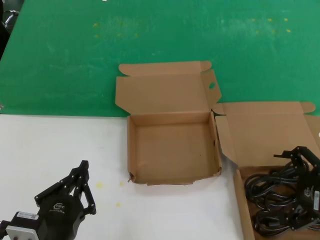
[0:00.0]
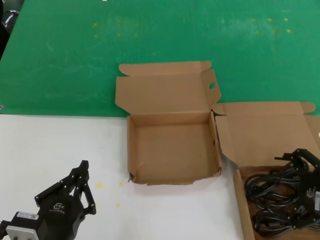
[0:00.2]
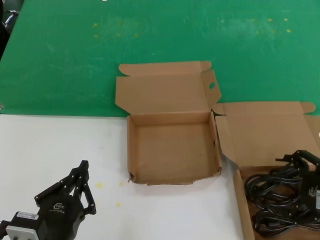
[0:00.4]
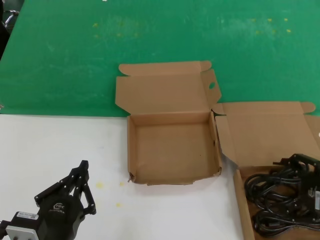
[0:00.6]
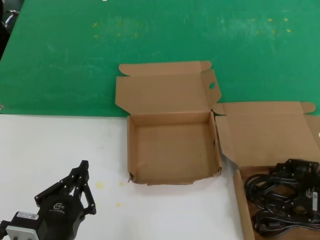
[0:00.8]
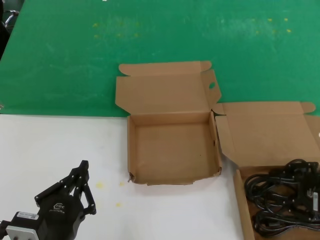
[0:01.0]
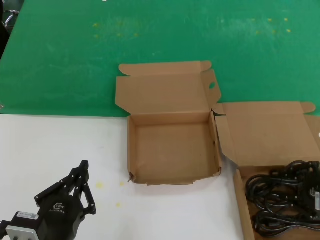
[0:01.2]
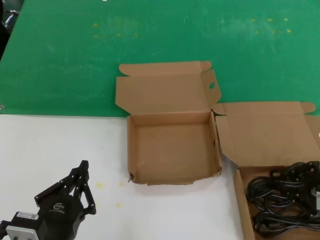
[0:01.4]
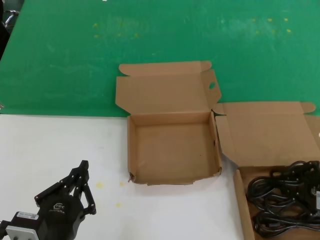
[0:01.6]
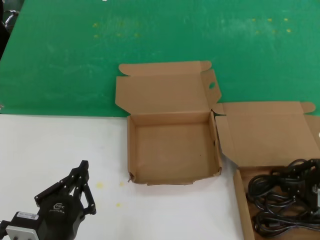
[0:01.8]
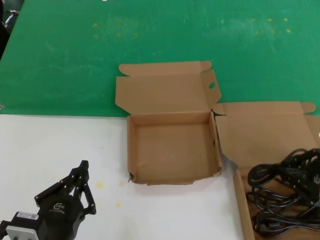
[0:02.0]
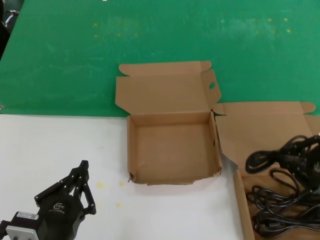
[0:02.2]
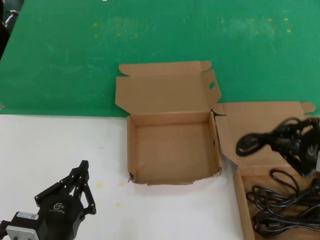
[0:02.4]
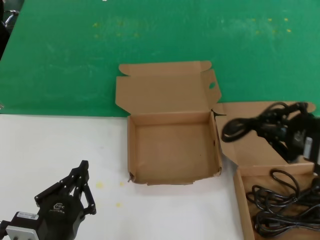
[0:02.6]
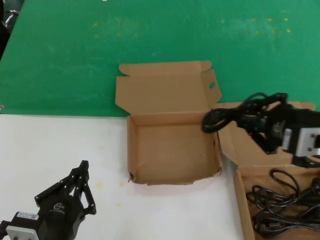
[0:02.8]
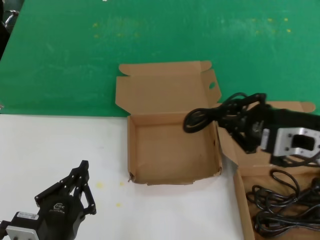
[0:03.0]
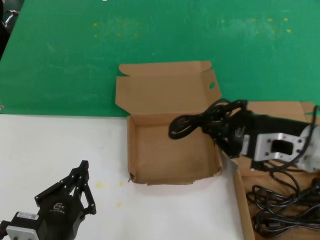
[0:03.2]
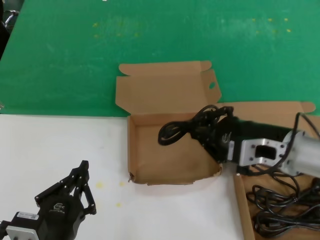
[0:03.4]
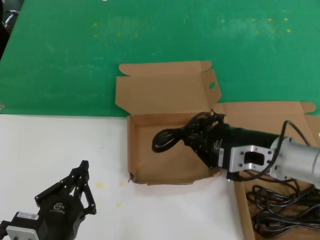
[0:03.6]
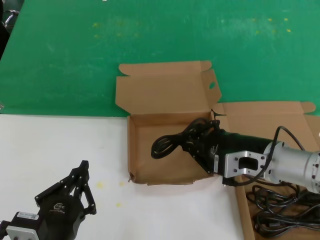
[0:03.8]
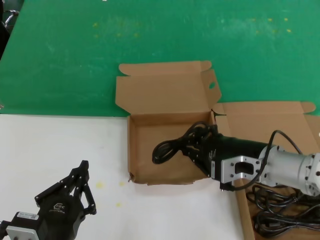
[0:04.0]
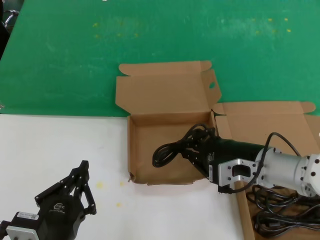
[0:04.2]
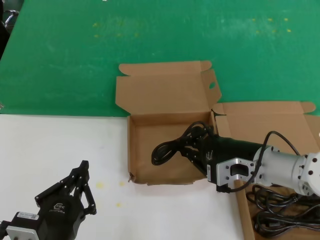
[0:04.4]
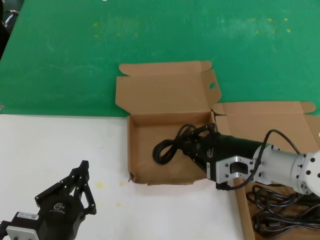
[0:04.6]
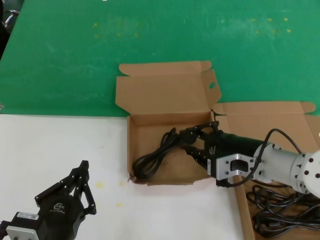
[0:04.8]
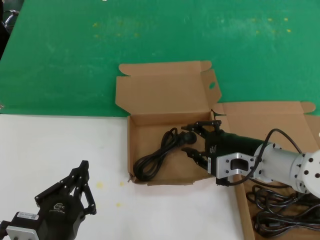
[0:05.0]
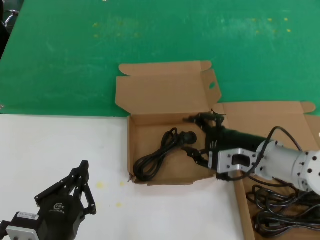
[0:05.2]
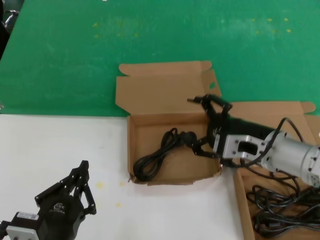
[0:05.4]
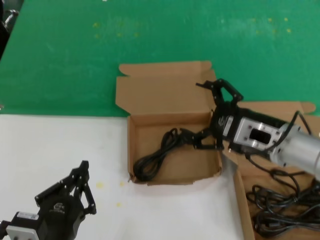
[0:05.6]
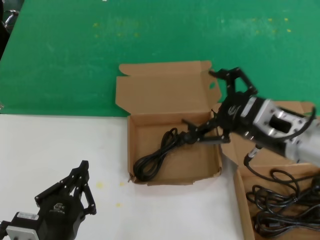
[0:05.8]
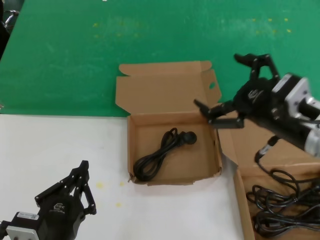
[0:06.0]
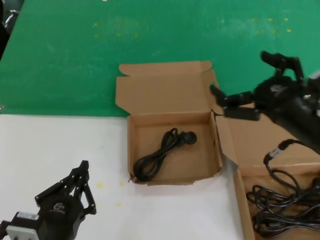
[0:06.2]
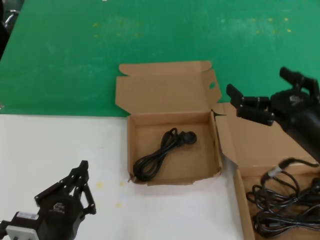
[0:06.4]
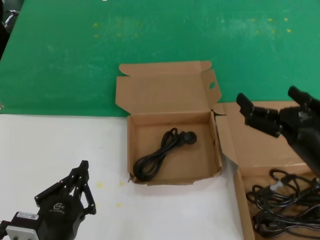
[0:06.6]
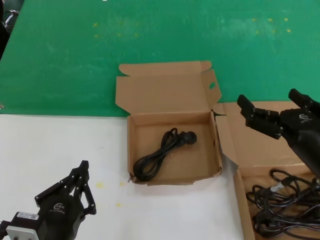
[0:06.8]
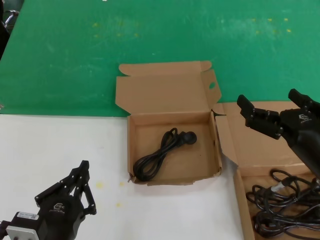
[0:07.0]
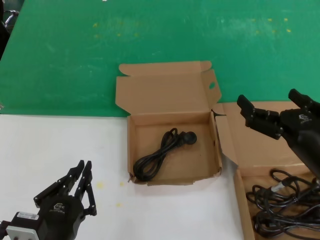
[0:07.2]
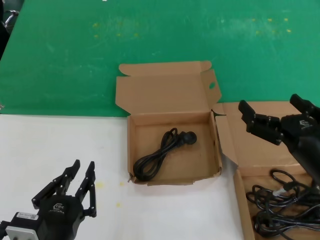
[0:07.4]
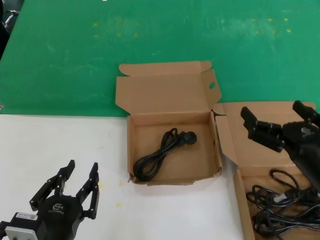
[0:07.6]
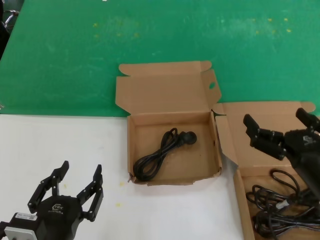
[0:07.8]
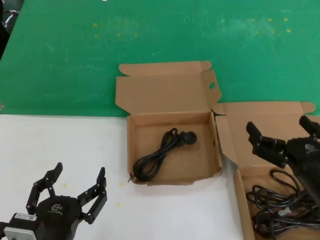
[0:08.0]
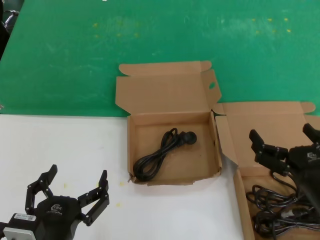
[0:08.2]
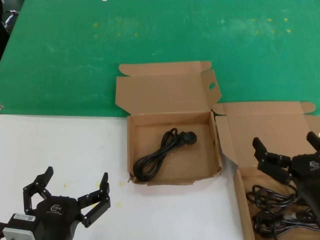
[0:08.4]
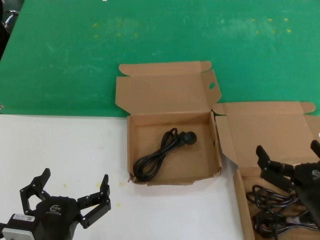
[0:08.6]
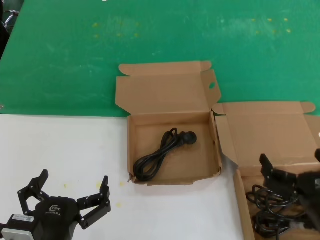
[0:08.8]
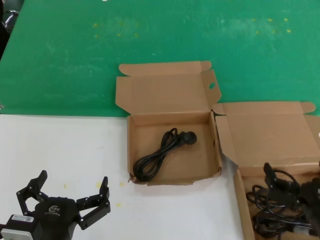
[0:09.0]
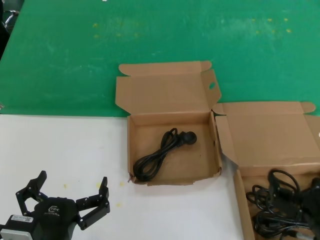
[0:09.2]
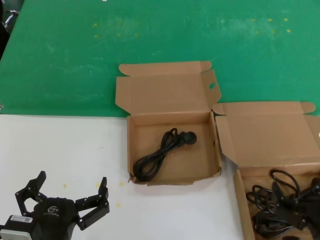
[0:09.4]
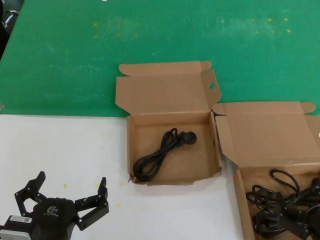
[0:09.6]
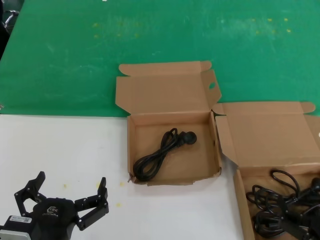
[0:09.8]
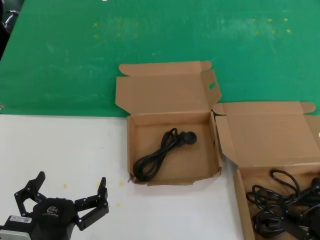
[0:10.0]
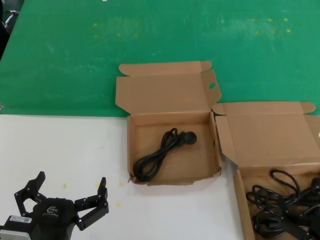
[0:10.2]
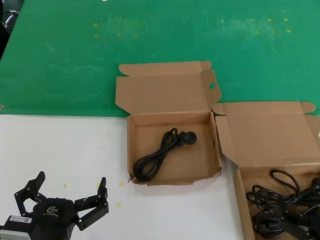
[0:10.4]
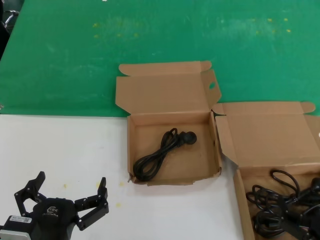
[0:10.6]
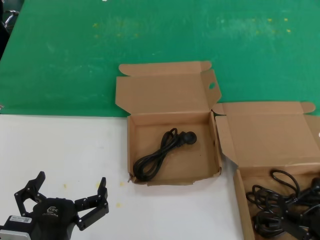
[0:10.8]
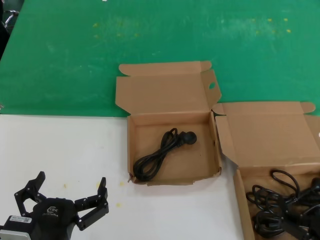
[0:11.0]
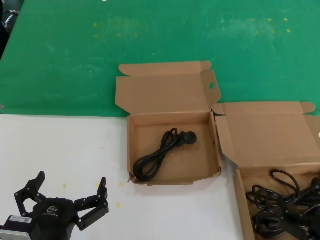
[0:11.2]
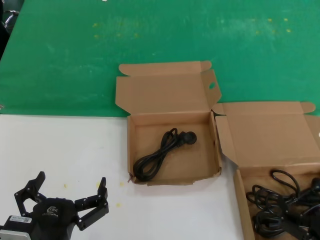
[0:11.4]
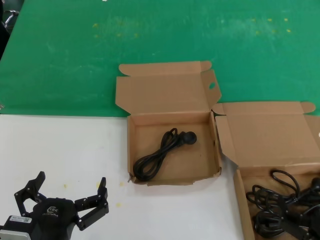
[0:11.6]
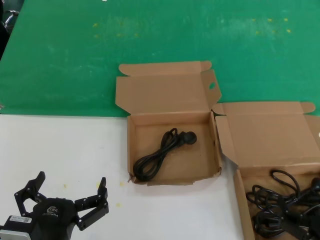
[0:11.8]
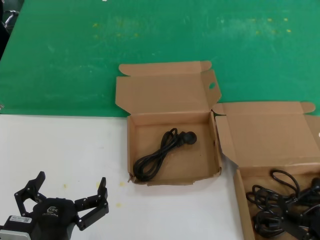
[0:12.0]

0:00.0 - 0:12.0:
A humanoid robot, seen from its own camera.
Task of the whole recording: take the parts from the box containing them and put them into an empty box.
Step, 0:01.8 - 0:05.2: Place the data cable in the another box.
0:00.0 - 0:01.6: The hands make only small movements.
0:01.6 - 0:03.0: The right hand travels to the left and upward by about 15 cm.
0:03.0 - 0:04.4: The right hand shifts about 15 cm downward, forward and to the left.
0:04.4 - 0:06.0: The right hand goes roughly 10 cm upward and backward.
0:06.0 - 0:07.6: The right hand travels downward by roughly 10 cm.
0:07.6 - 0:09.0: The right hand heads downward, covering about 10 cm.
0:09.0 - 0:10.4: The right hand changes place by roughly 5 cm.
0:10.4 - 0:12.0: Both hands stay put.

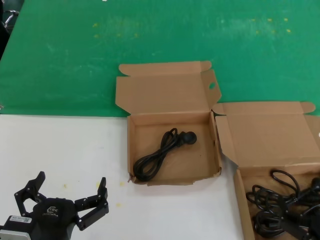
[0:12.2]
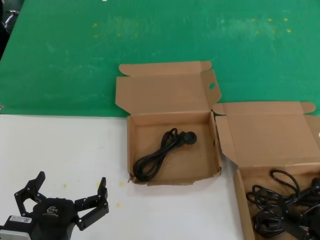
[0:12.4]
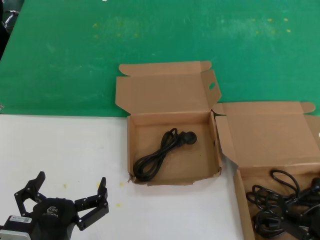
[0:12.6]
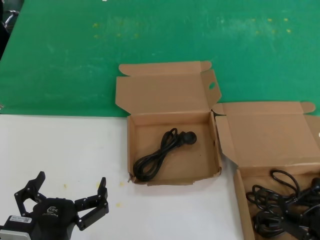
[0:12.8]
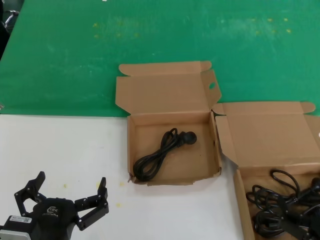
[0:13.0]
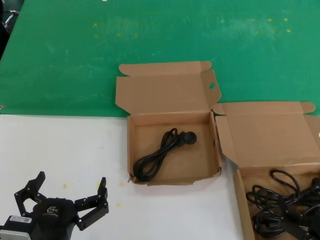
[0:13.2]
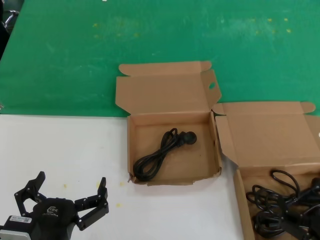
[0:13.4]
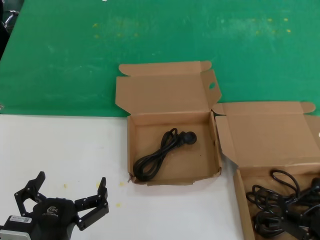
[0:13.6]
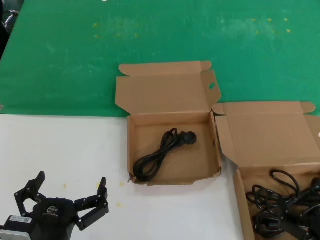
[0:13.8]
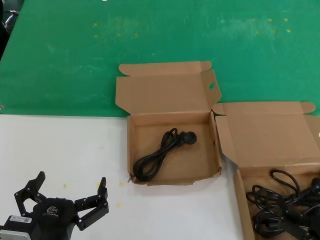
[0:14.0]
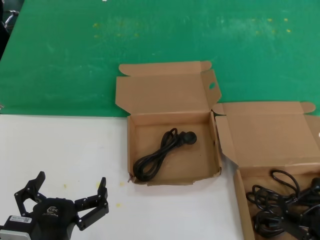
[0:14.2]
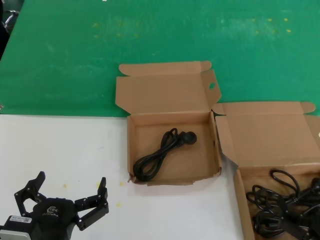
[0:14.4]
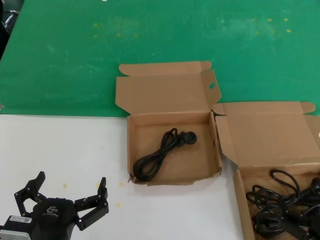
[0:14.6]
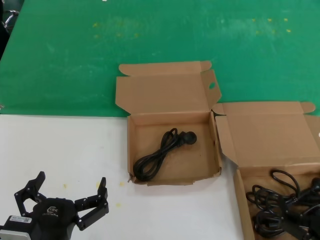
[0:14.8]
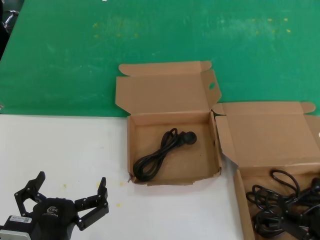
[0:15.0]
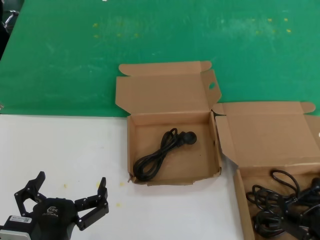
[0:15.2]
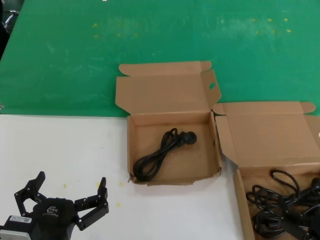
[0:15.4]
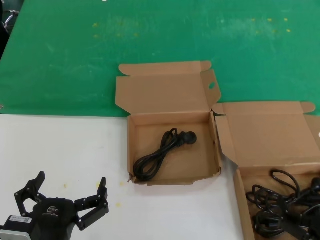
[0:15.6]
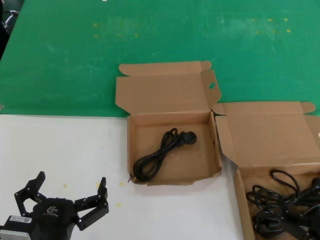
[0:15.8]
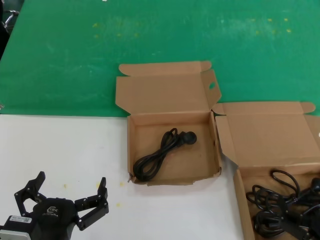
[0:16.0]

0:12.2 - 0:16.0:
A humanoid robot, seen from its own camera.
Task of the whole recording: take the parts from the box containing them and put them into an empty box.
0:12.2 - 0:16.0: Both hands stay about where they are.

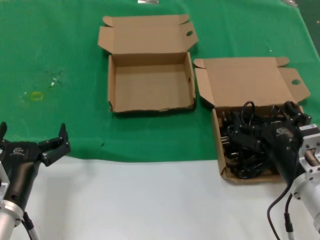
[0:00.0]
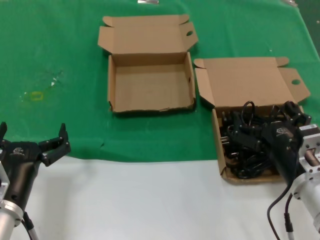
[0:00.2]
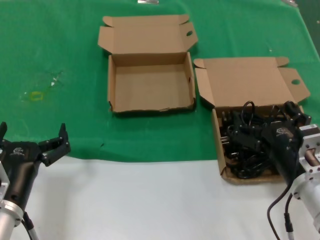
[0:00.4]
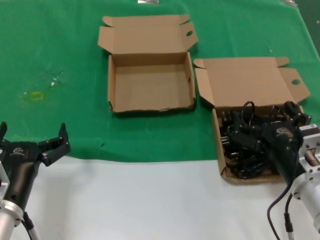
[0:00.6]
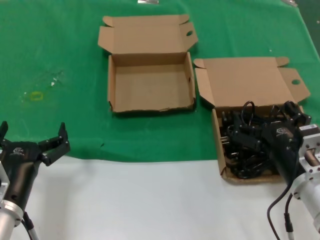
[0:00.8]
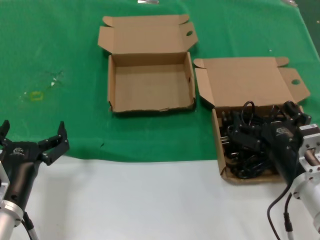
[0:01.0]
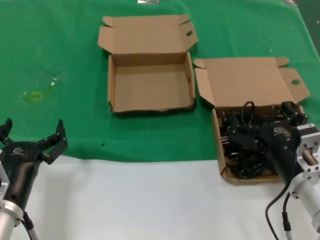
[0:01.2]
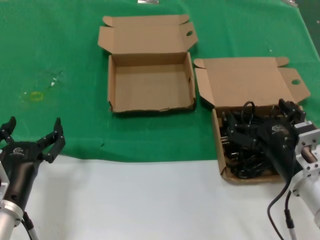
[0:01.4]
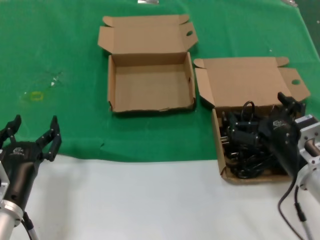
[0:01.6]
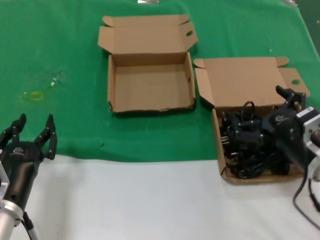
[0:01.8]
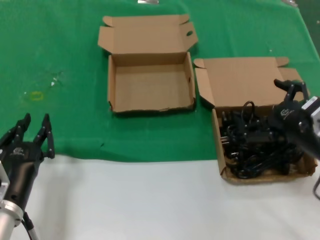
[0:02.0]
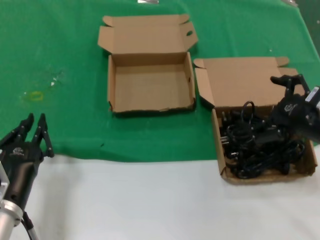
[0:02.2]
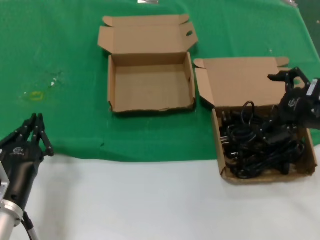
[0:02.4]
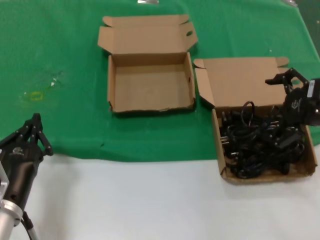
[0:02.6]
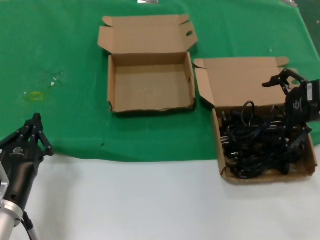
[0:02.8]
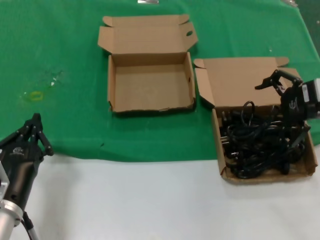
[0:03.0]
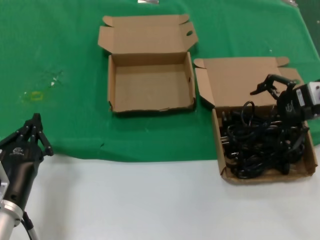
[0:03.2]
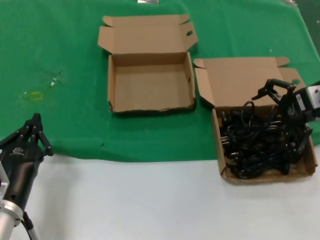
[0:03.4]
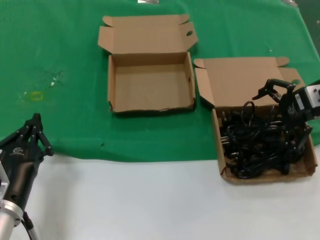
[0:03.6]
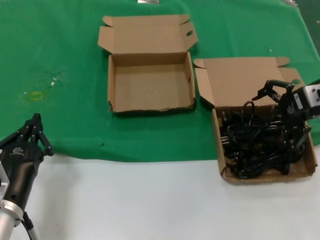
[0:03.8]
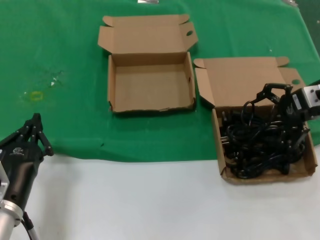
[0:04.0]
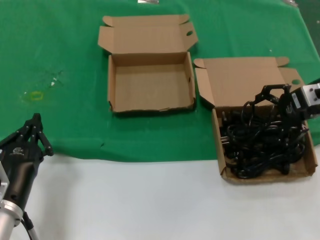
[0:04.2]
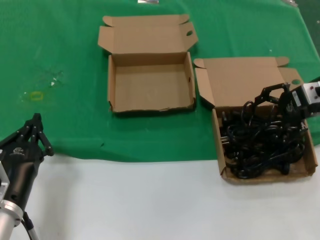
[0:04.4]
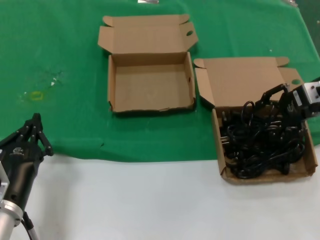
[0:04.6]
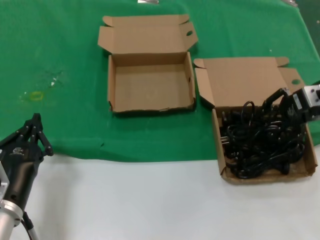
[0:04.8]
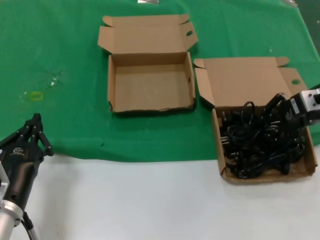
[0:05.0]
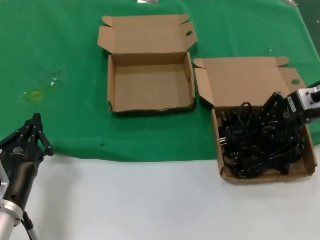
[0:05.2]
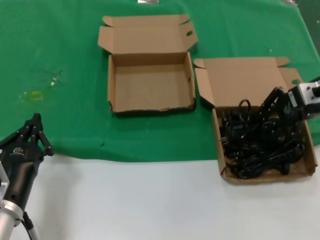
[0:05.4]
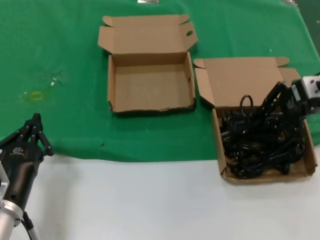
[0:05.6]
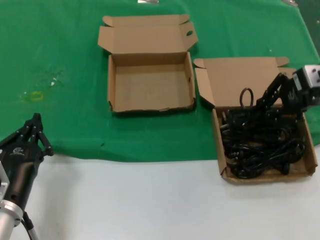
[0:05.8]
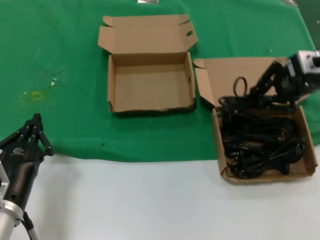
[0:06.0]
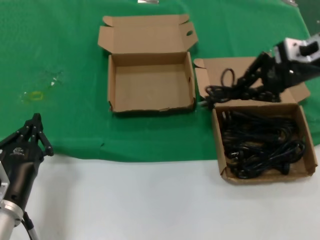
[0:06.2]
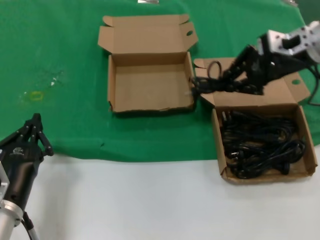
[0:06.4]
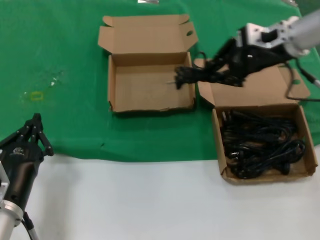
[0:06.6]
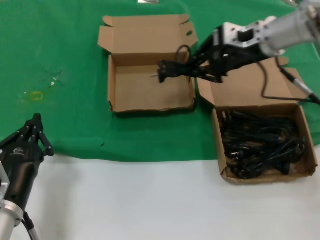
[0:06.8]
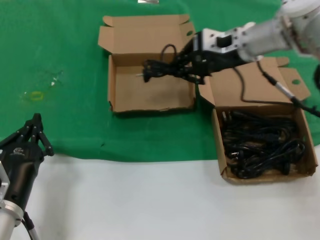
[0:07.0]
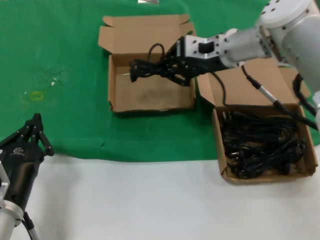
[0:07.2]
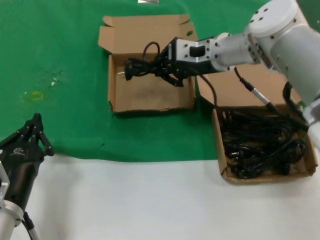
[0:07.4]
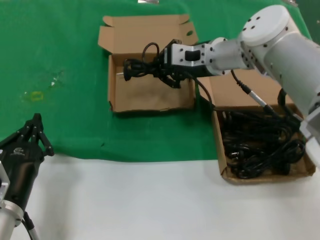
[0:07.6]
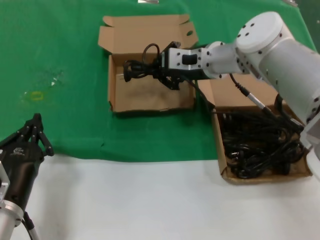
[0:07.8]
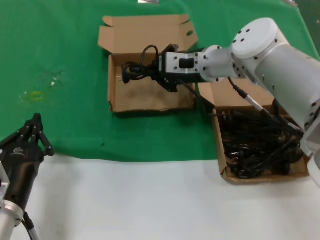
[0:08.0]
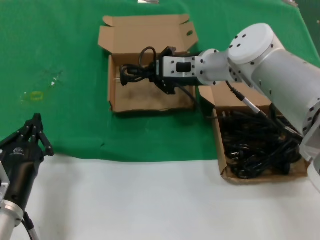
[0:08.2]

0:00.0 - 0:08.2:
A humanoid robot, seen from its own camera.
Task of the whole recording: take the parts from the box containing them and put them into an empty box.
Step, 0:00.0 - 0:05.2: Grasp the data cable.
0:00.0 - 0:01.6: The hands move only a little.
0:01.6 - 0:03.2: The right hand shifts roughly 25 cm upward, forward and to the right.
0:03.2 - 0:05.0: The hands stay close to where they were, moving slightly.
0:05.0 - 0:06.6: The right hand moves to the left and upward, about 10 cm.
0:06.6 - 0:08.2: The right hand shifts some 20 cm to the left and downward.
